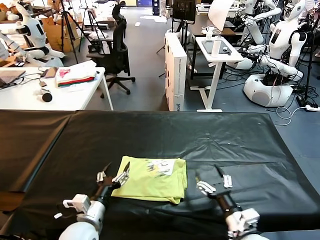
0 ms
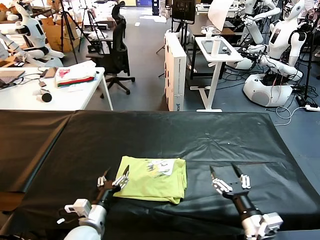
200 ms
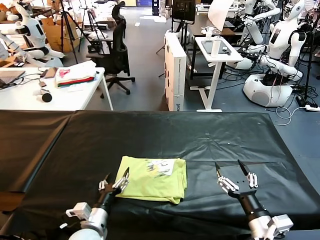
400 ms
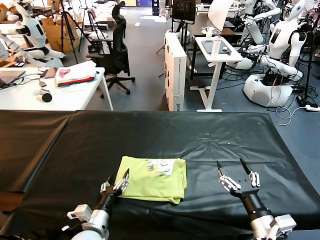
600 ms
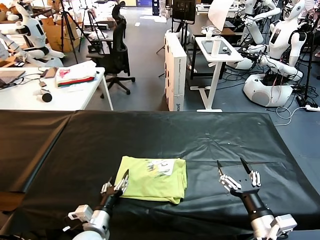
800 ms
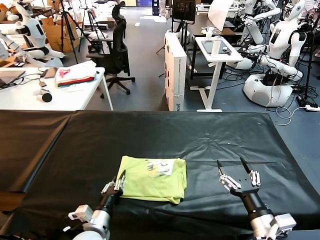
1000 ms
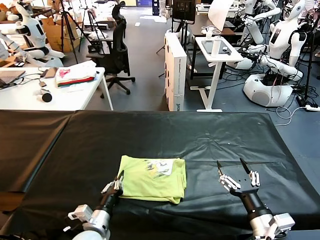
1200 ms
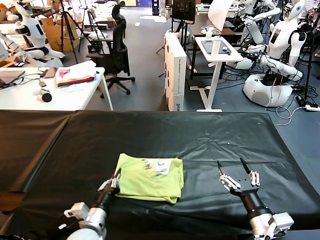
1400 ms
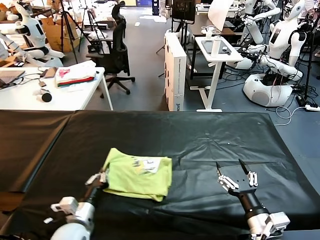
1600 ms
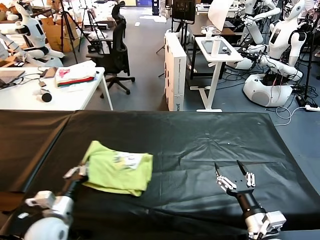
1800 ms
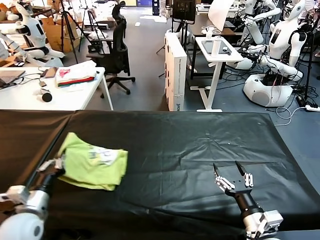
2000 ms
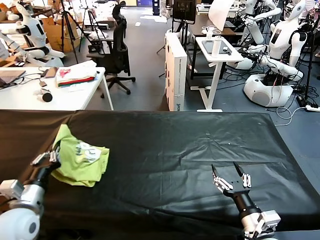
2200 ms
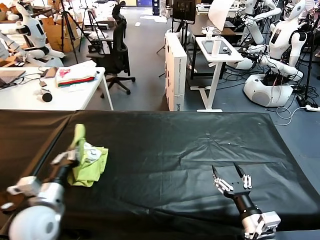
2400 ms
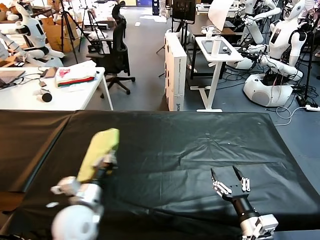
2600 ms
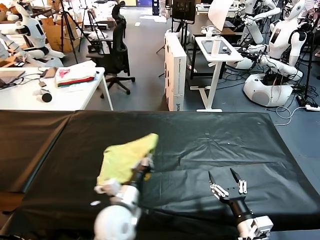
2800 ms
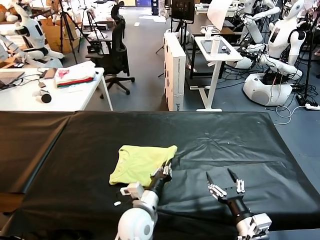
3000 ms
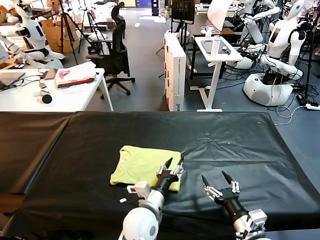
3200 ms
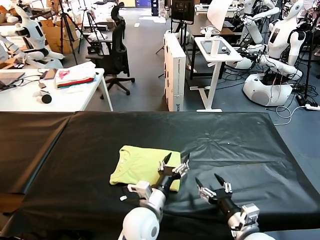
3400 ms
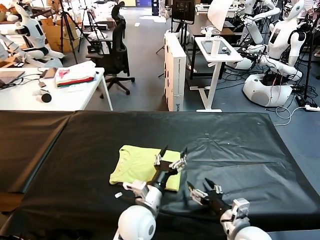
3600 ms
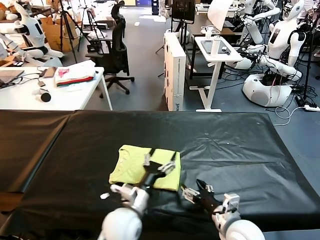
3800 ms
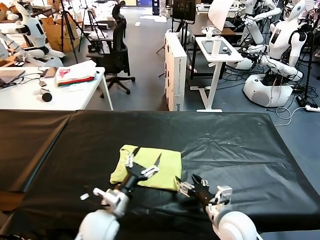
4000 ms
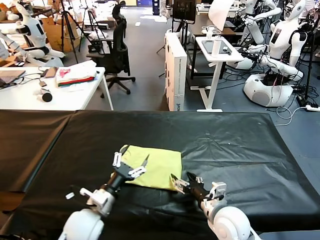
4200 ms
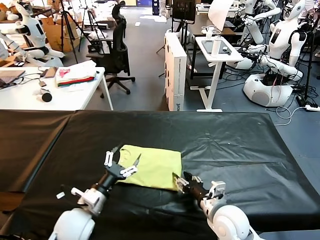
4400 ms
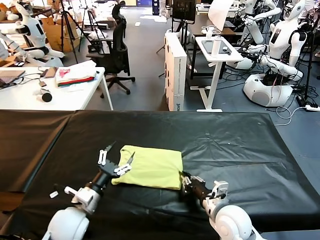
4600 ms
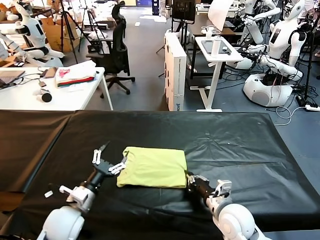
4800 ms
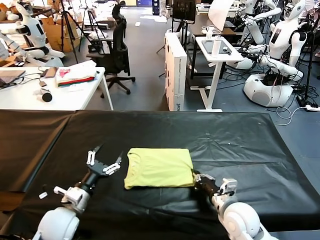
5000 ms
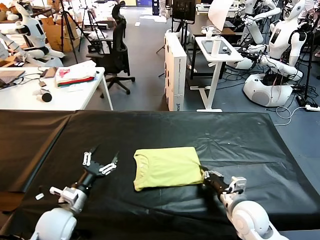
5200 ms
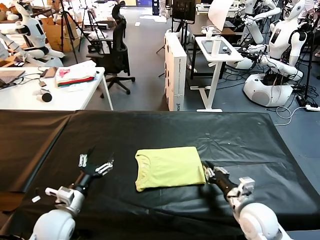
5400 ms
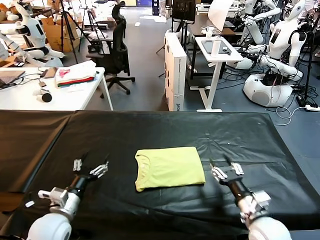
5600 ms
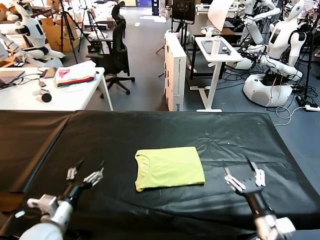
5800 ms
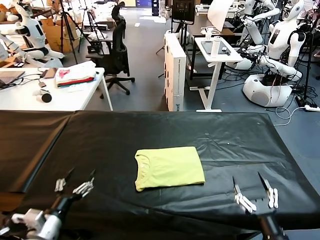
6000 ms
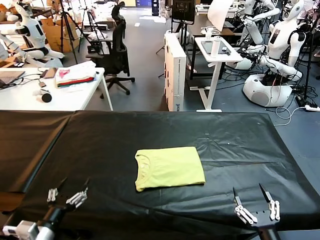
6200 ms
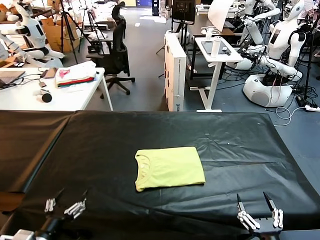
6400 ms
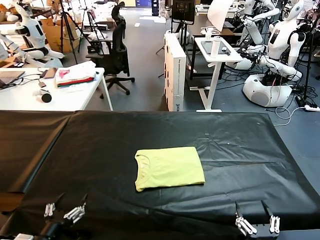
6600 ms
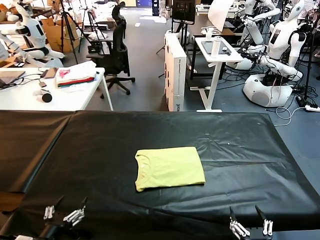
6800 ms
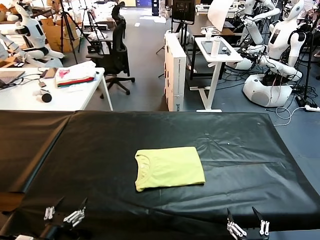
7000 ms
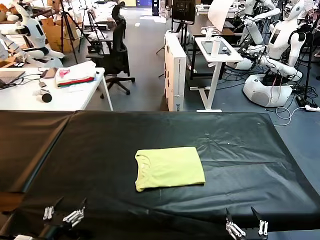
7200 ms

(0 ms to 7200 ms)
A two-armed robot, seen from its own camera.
Task of the whole recording: fold and organize the clothes.
Step, 0 ms - 3200 ms: Flip the folded clothes over with left gripper.
Step, 3400 ms - 5600 ms: Drag the clothes to the center of the table.
0 ms - 1400 ms: The right gripper goes about 5 cm upward; the left gripper closes up.
1400 ms - 2800 ms: The left gripper is displaced to the right and upward by roughly 10 cm.
2800 ms - 4400 ms: The left gripper is displaced to the left by some 10 cm, and opens its fingers. Meanwhile the right gripper goes approximately 10 cm forward and to the left.
4400 ms - 5800 ms: The right gripper is displaced to the right and backward by roughly 15 cm, and closes and opens again. The left gripper shifts about 5 cm to the left.
5800 ms - 7200 ms: The grippers both shift backward by roughly 10 cm.
